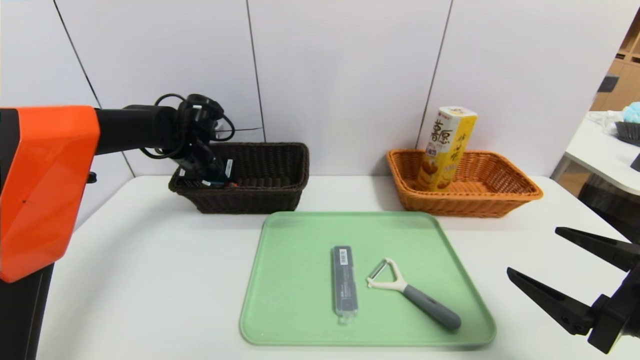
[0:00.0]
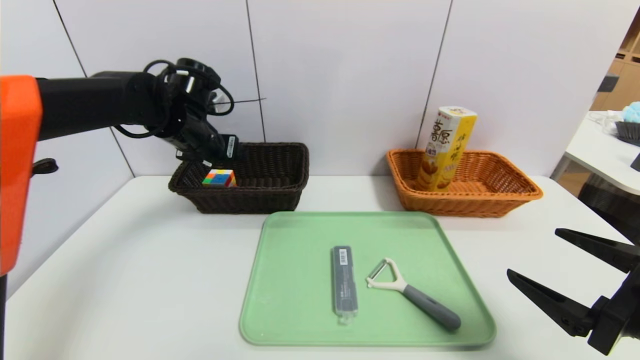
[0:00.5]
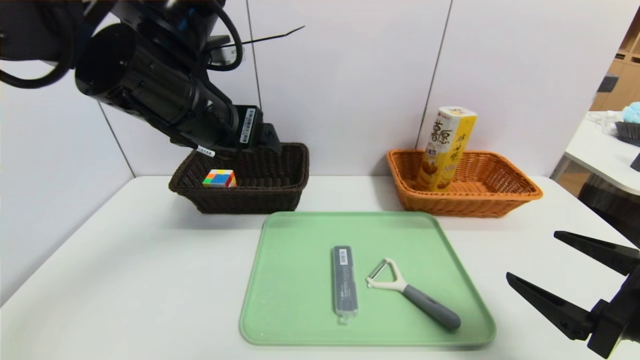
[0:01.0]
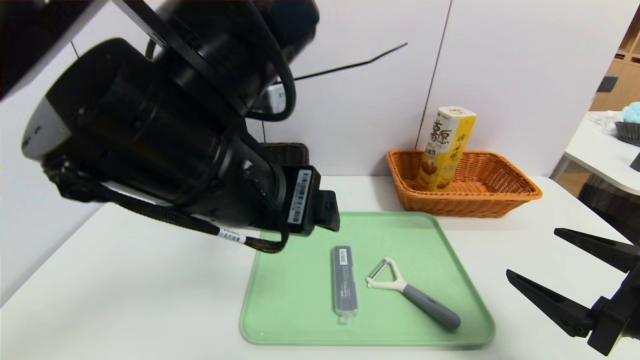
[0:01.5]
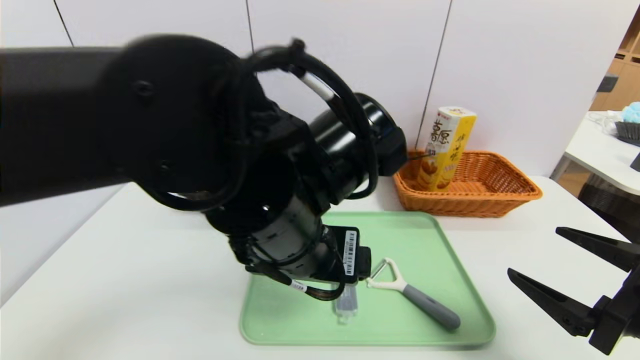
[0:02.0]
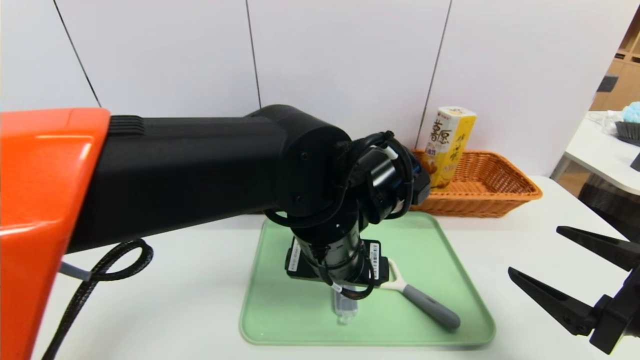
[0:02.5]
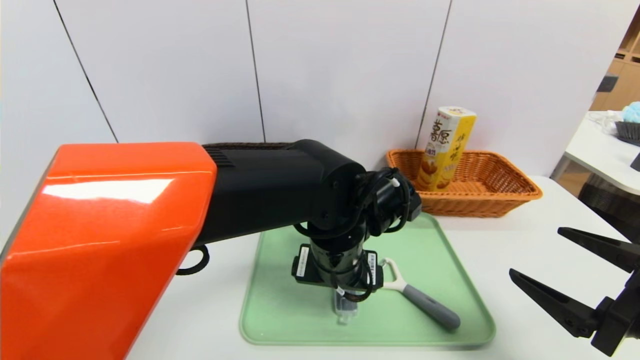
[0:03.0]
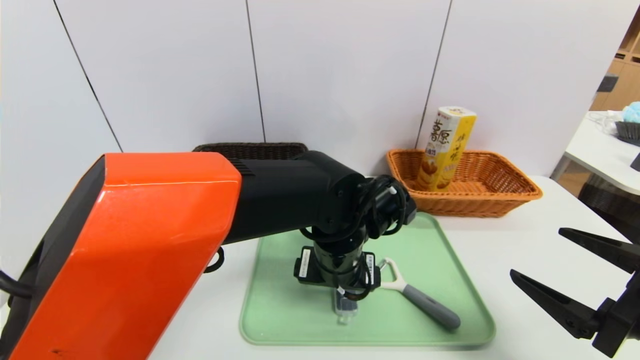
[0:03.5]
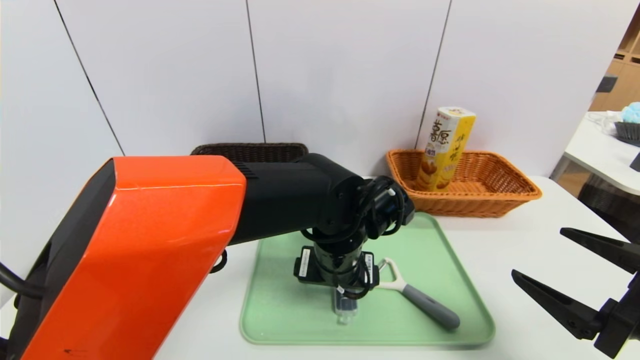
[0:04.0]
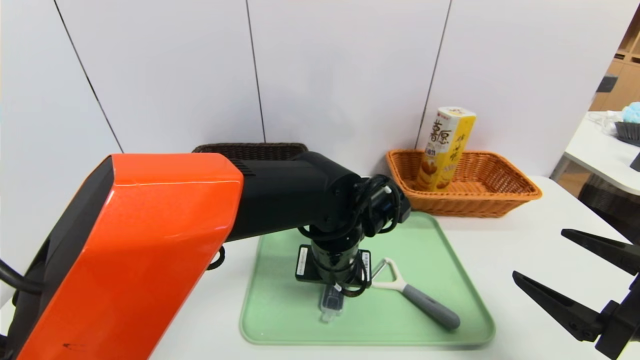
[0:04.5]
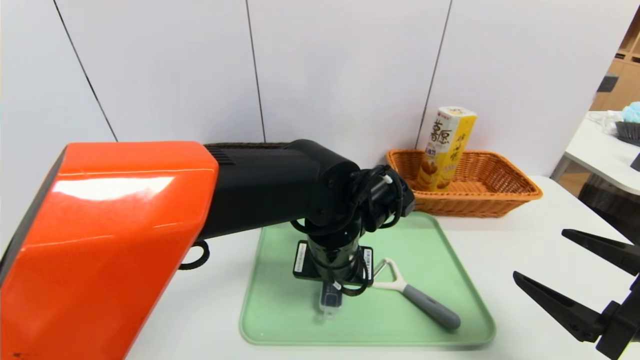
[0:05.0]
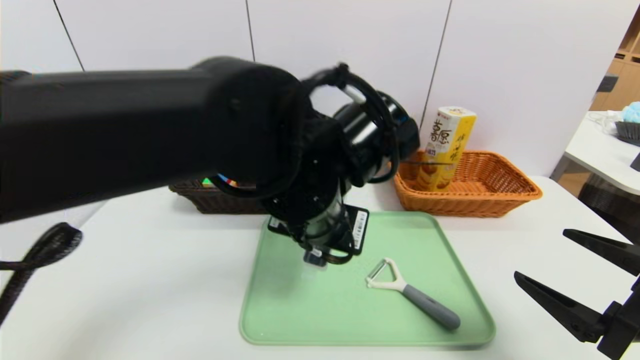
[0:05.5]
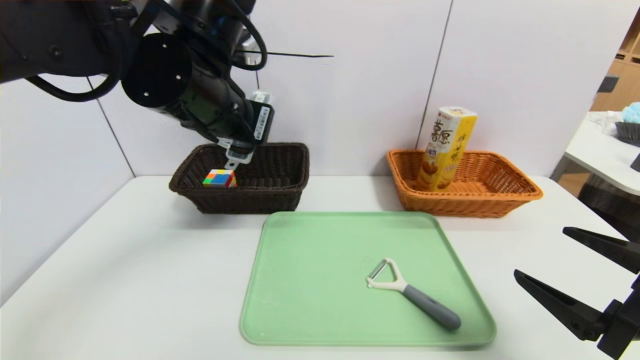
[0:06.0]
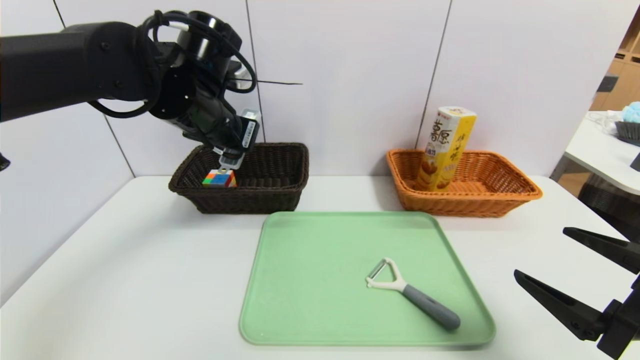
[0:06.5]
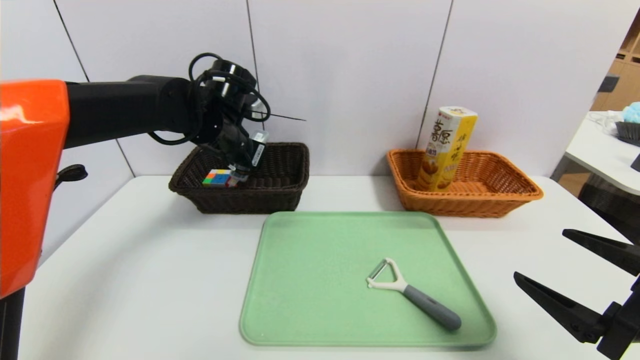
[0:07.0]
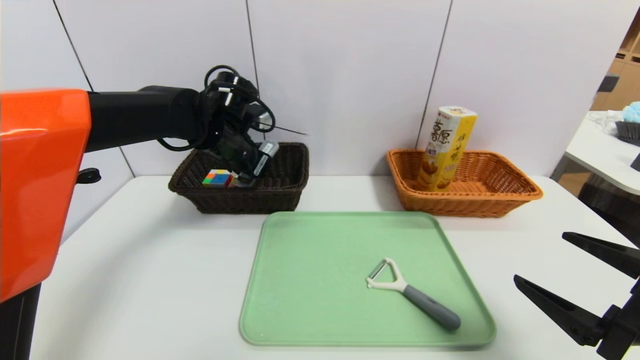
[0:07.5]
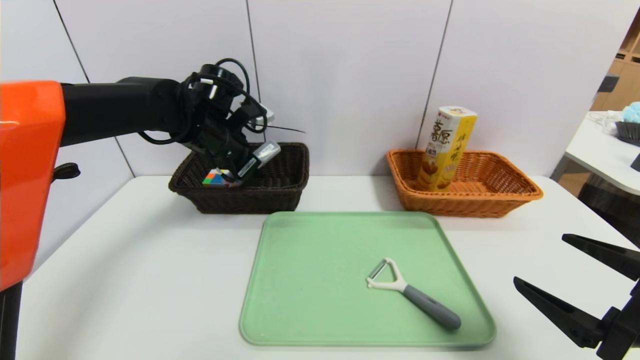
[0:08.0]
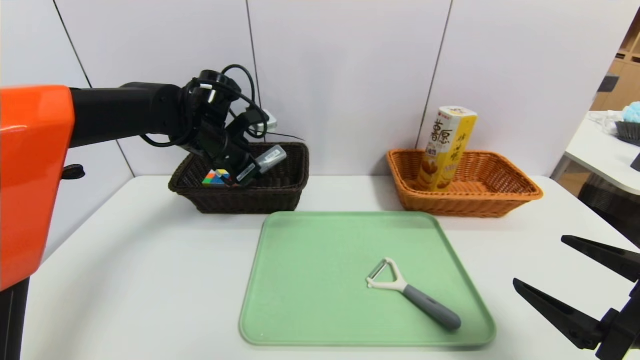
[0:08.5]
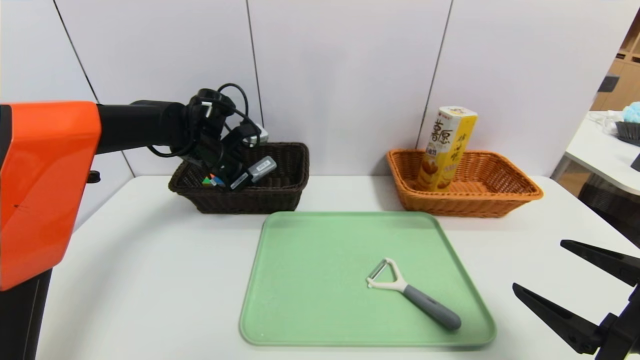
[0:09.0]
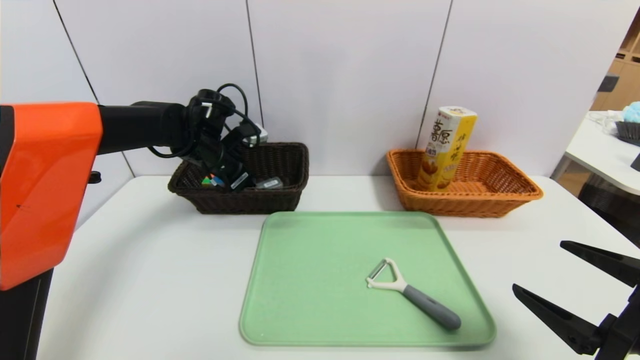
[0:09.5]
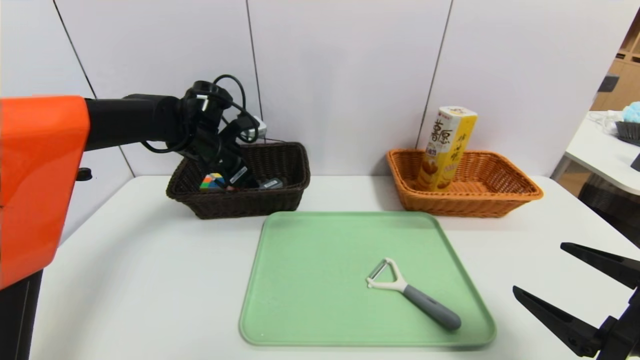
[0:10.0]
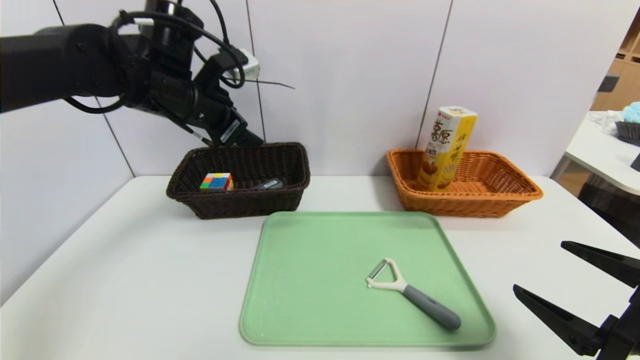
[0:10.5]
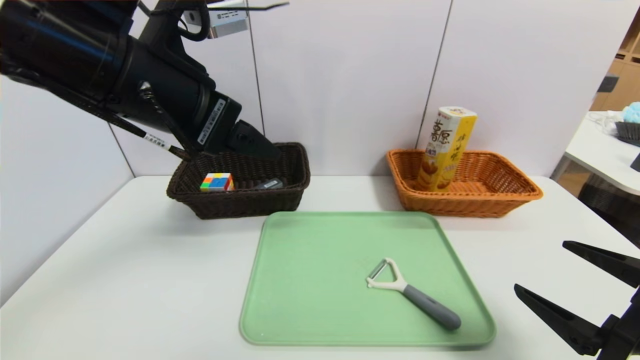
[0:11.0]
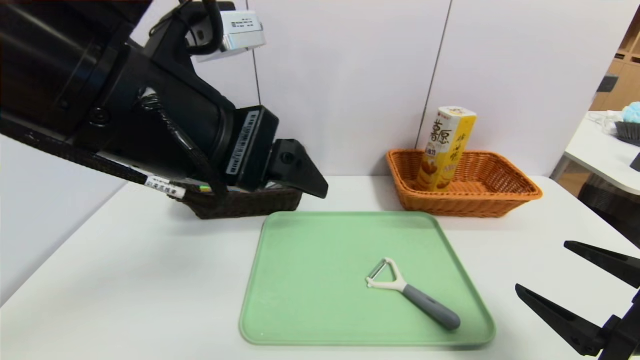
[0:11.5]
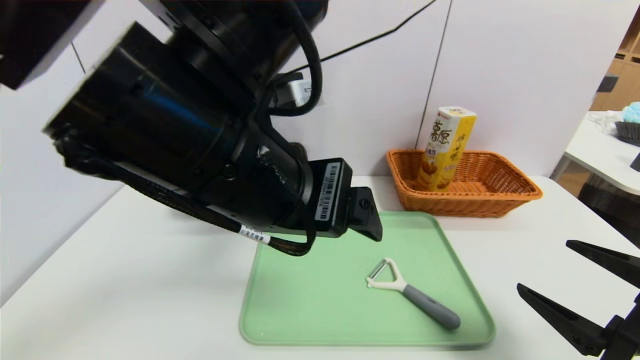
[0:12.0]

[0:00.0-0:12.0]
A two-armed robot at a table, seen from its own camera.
Task of the whole recording: place the food in the right basket with the right gripper, and place the non food items in the left basket with the left gripper.
Step, 0:00.5 to 0:09.5: Grasp the compass and put it in the left basket.
0:00.0 to 0:02.0: The left gripper shifts some 30 cm backward and to the right.
0:02.0 to 0:04.0: The left gripper shifts some 15 cm downward, forward and to the right.
0:04.0 to 0:06.0: The left gripper heads upward and to the left, covering about 25 cm, and closes.
0:06.0 to 0:08.0: The left gripper shifts about 15 cm forward, downward and to the left.
0:08.0 to 0:10.0: The left gripper opens up.
0:10.0 to 0:12.0: The left gripper shifts about 30 cm backward, to the right and upward.

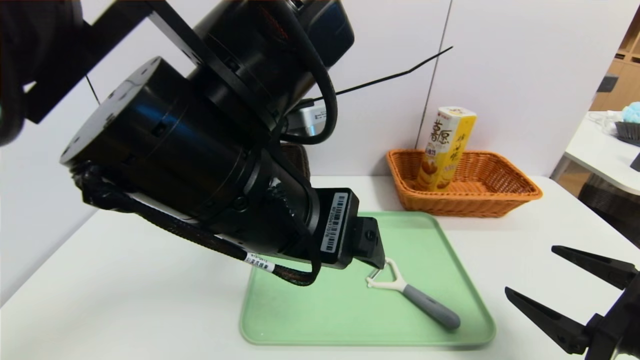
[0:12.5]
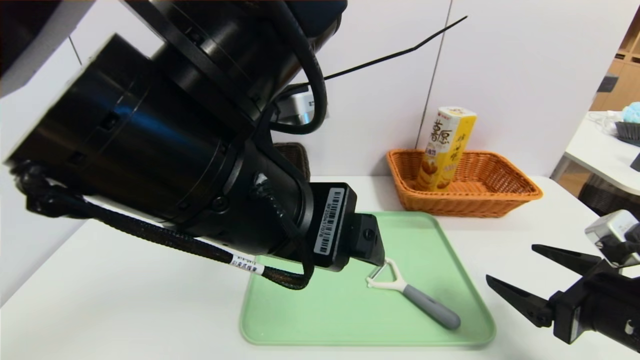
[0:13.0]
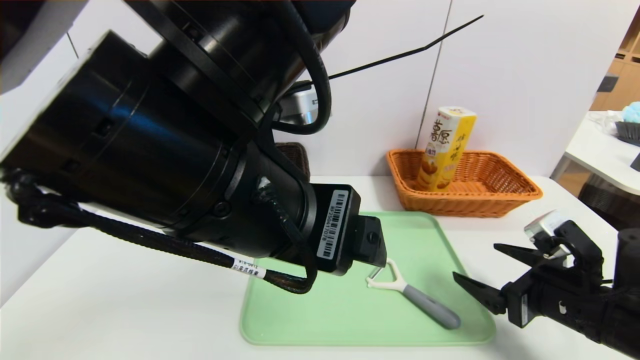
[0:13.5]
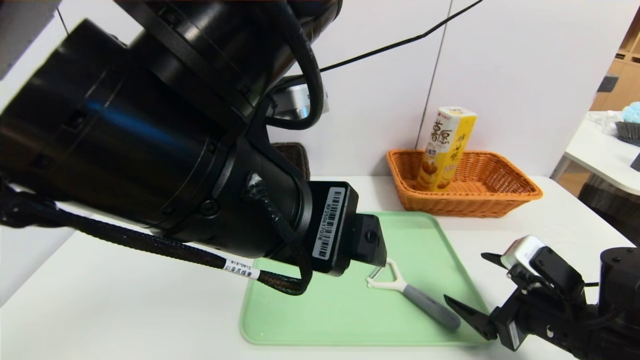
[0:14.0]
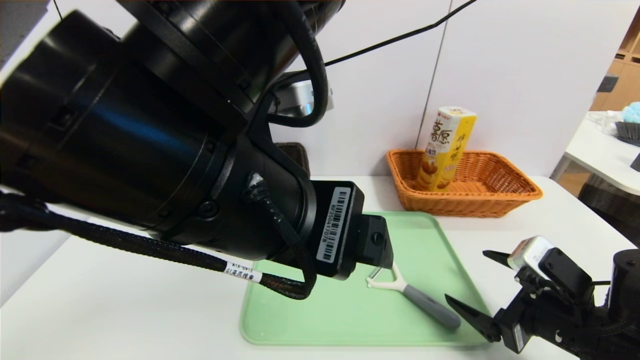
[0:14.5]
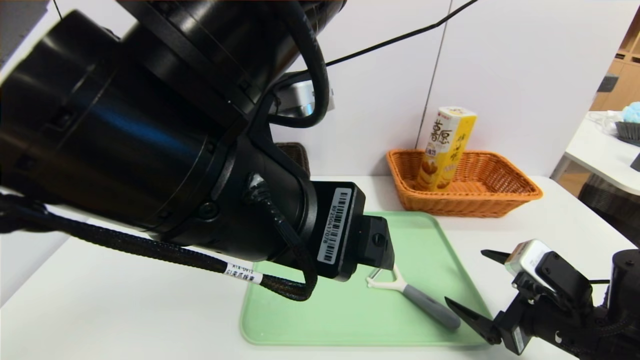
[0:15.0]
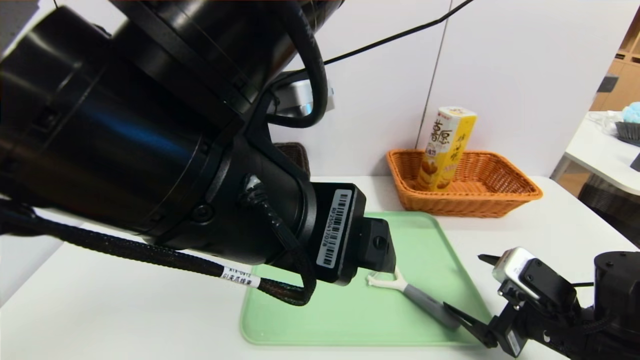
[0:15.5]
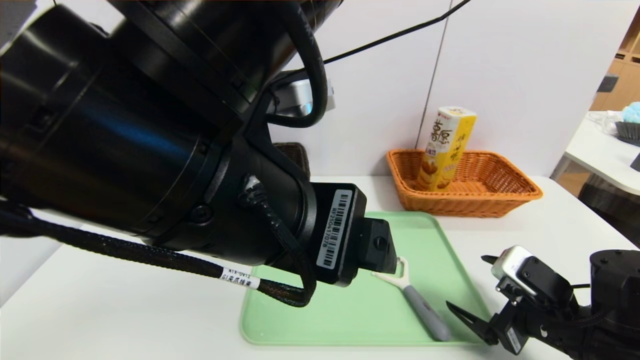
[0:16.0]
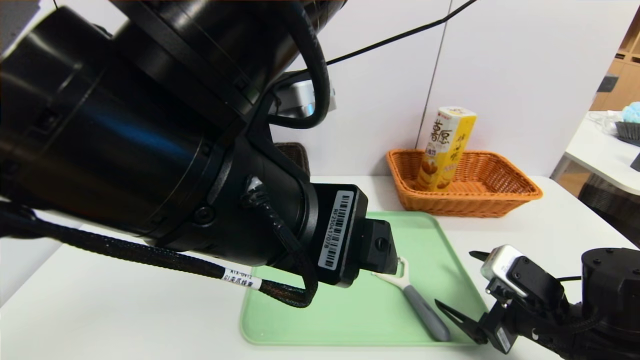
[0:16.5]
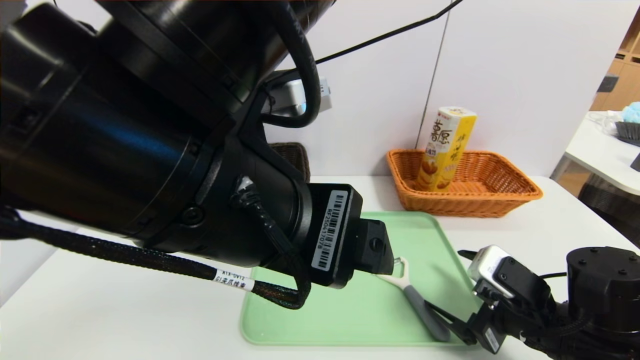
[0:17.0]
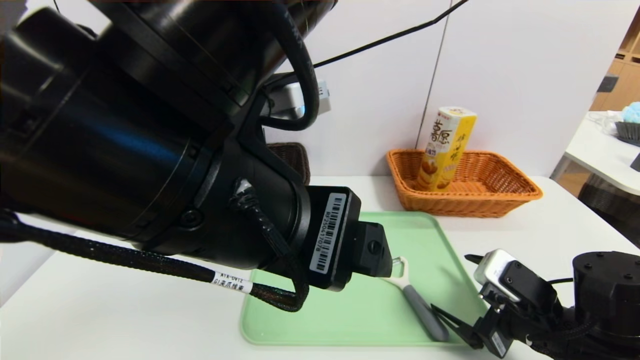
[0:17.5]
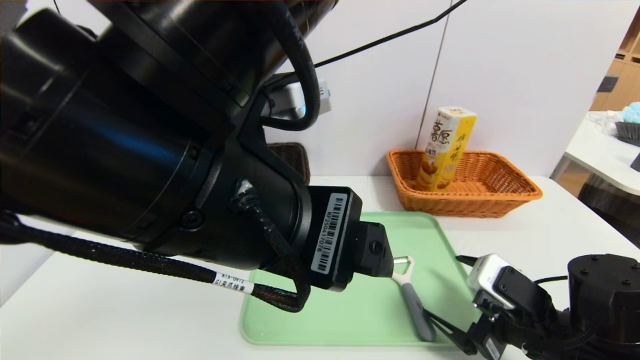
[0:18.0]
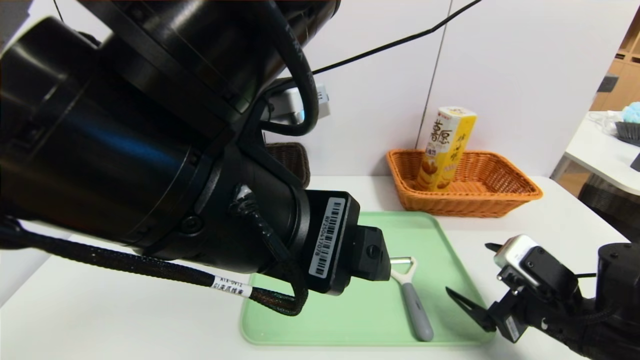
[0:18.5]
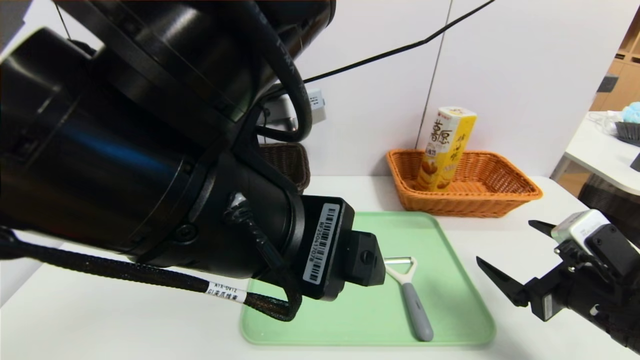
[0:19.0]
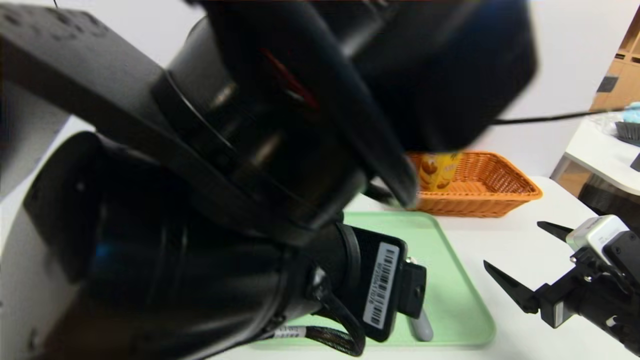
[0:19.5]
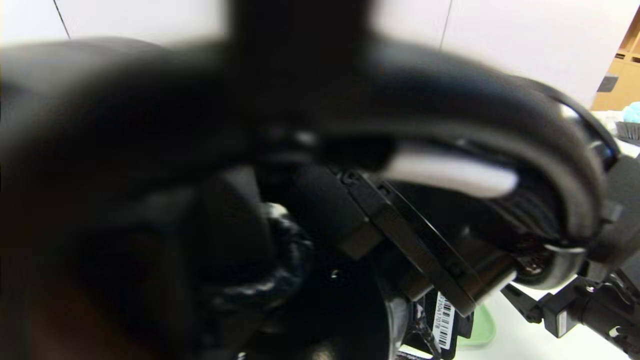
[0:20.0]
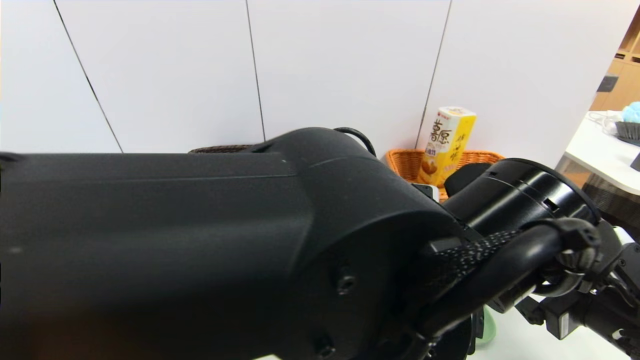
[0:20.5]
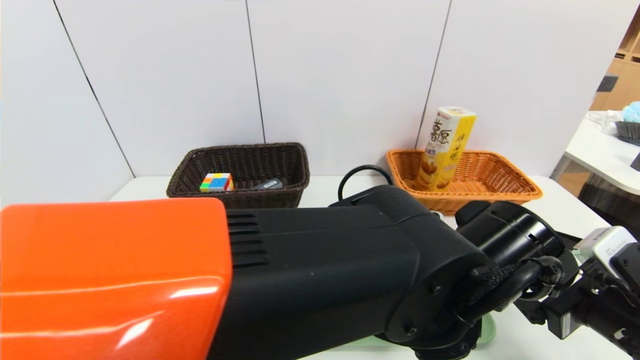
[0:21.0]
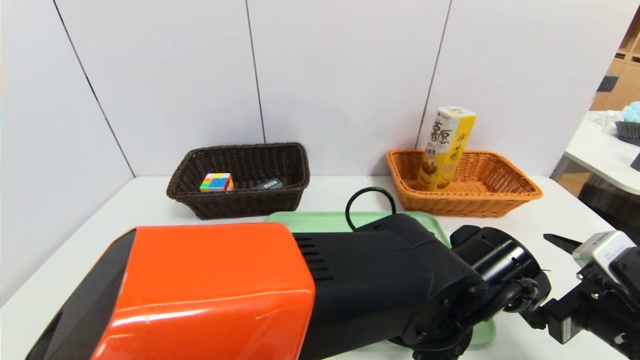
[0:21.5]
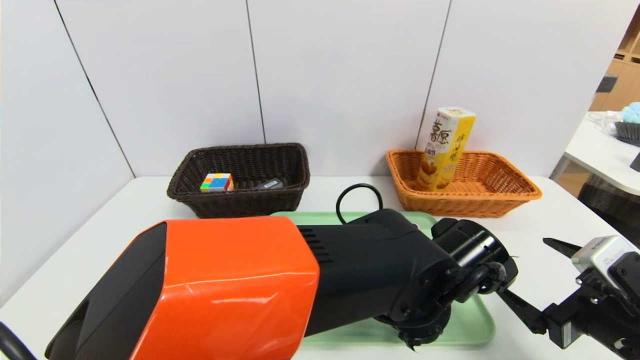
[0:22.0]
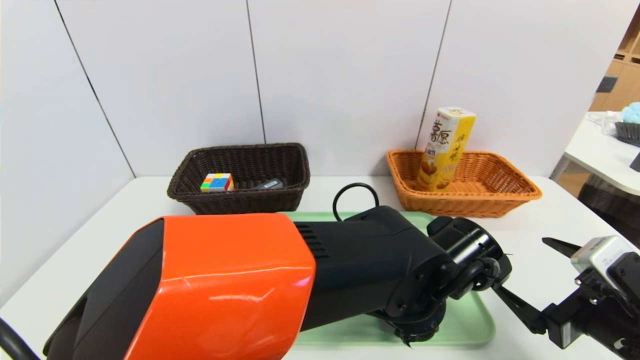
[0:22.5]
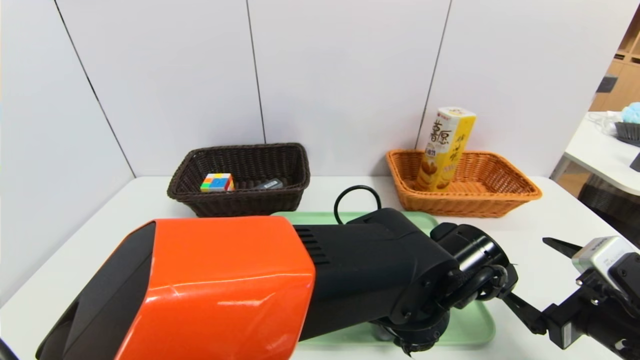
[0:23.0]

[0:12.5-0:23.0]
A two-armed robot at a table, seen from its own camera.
Task of the whole recording: place the food in the right basket with the right gripper, and place the non food items in the left basket with the left gripper.
0:12.5 to 0:14.5: The right gripper moves forward, approximately 5 cm.
0:14.5 to 0:16.5: The grippers stay close to where they were, moving slightly.
0:16.5 to 0:19.0: The right gripper shifts by roughly 5 cm.
0:19.0 to 0:21.0: The left gripper travels to the right and downward by roughly 20 cm.
0:21.0 to 0:23.0: The left gripper moves downward, about 5 cm, and closes up.
